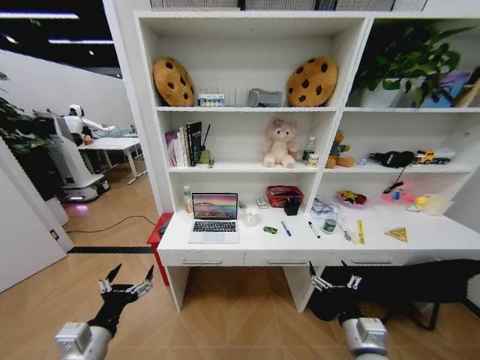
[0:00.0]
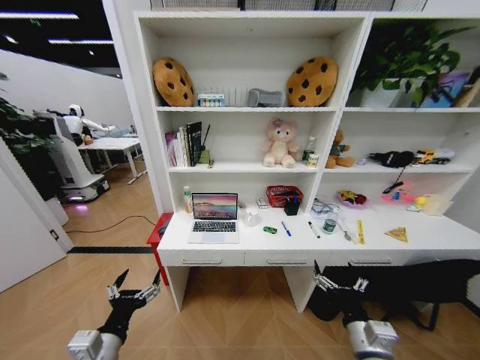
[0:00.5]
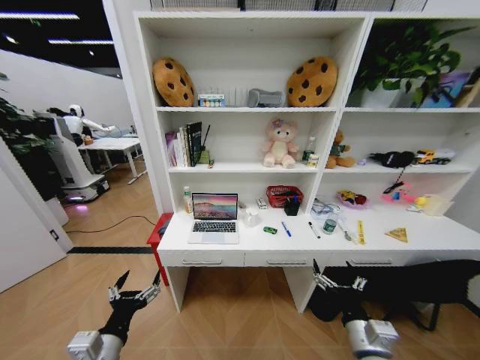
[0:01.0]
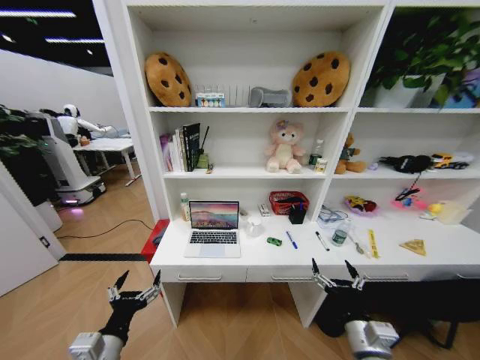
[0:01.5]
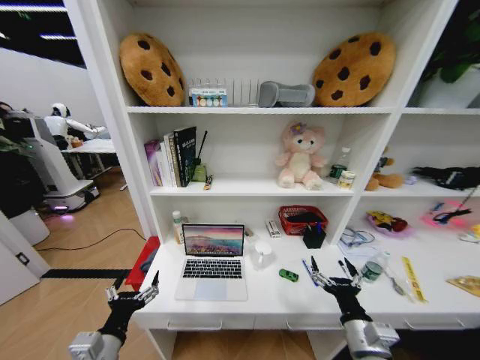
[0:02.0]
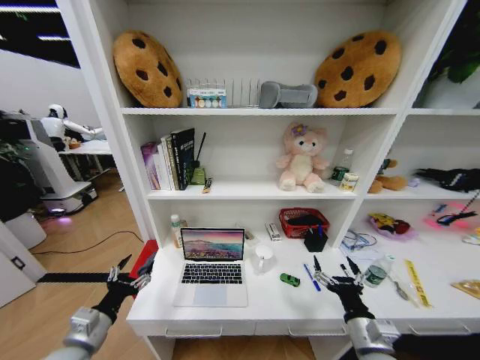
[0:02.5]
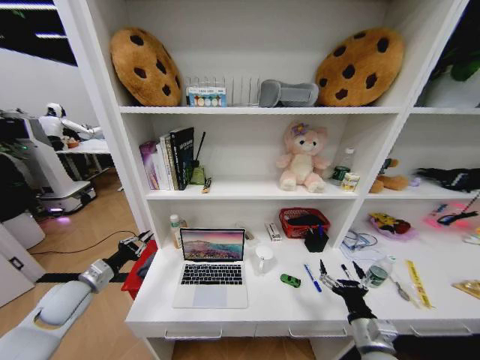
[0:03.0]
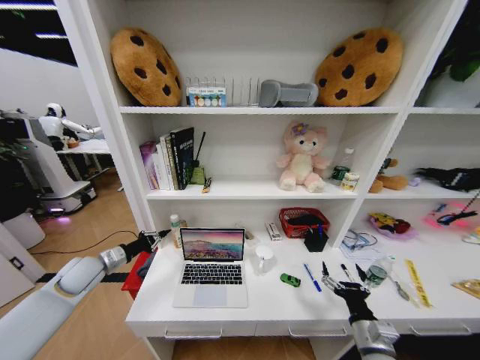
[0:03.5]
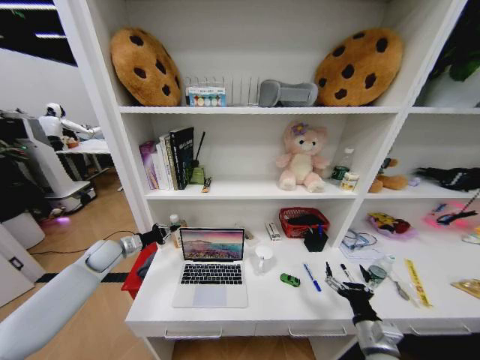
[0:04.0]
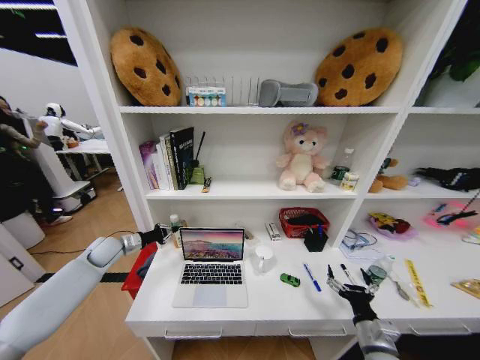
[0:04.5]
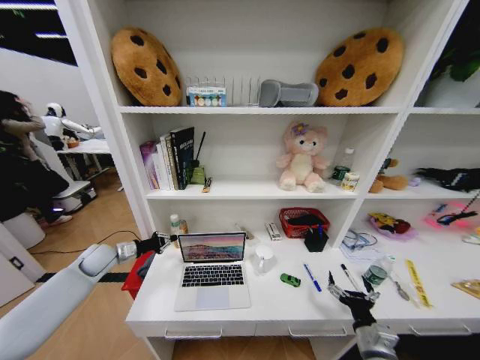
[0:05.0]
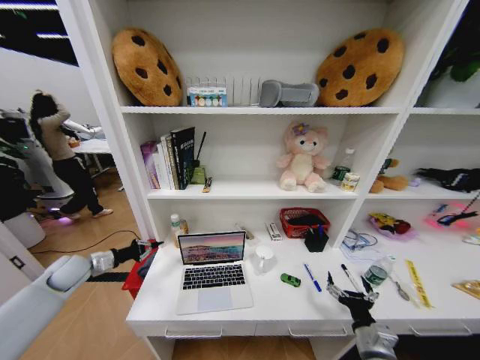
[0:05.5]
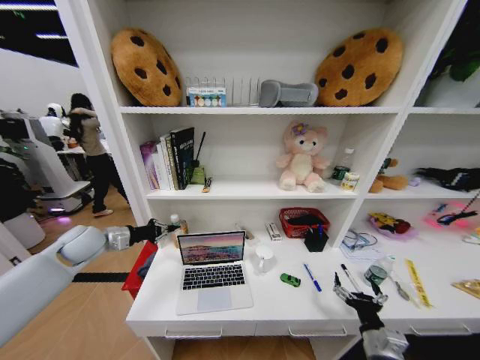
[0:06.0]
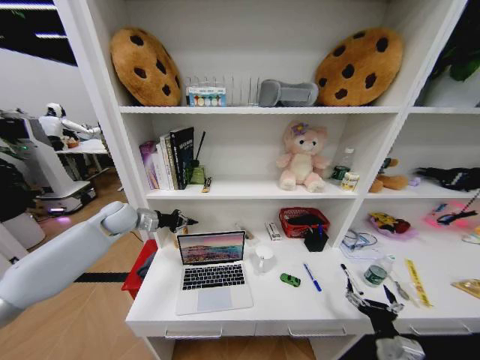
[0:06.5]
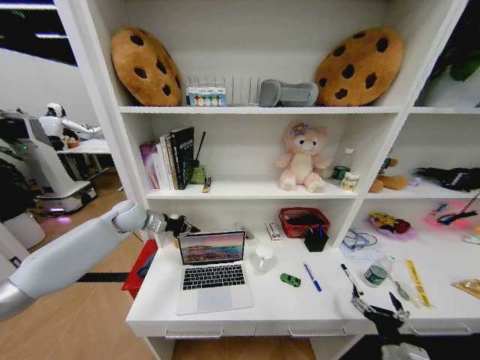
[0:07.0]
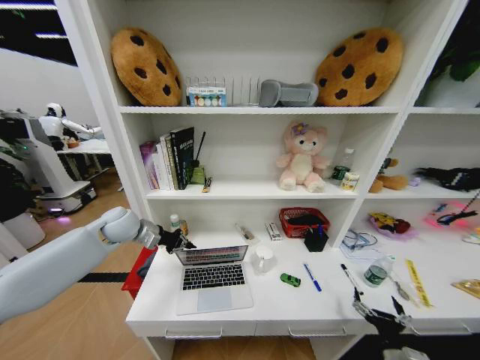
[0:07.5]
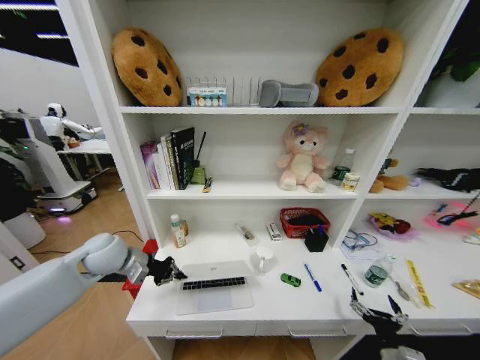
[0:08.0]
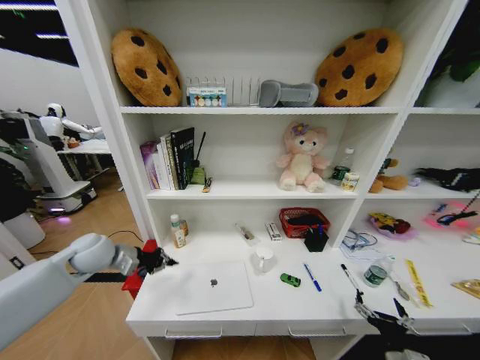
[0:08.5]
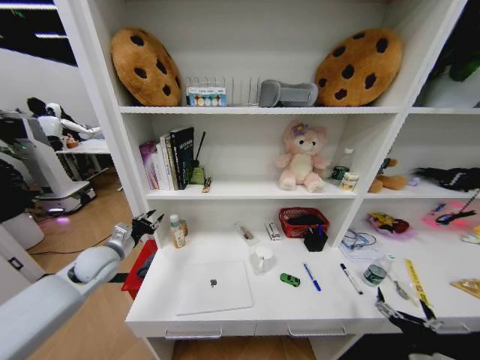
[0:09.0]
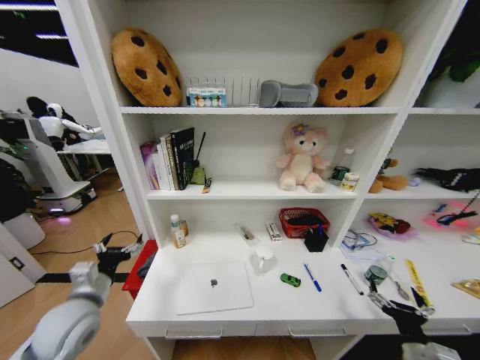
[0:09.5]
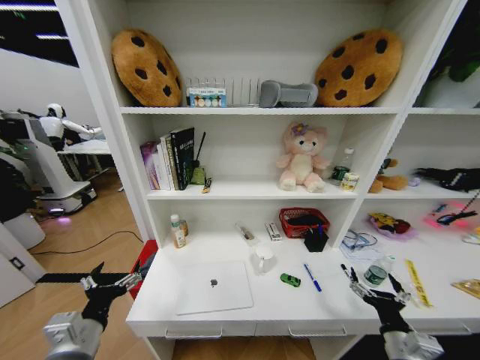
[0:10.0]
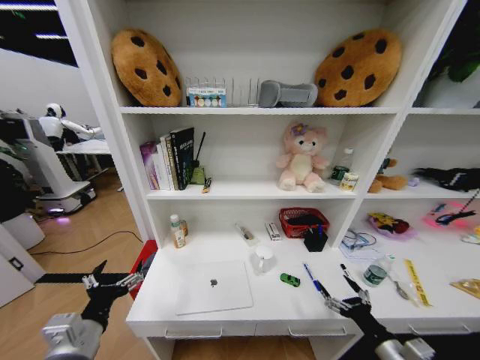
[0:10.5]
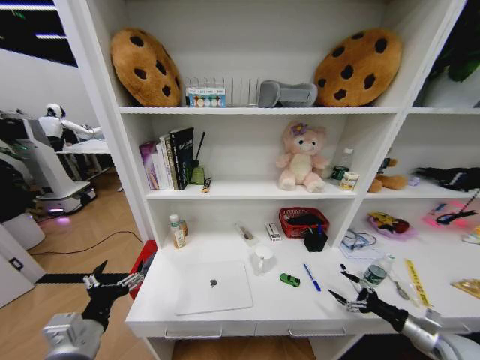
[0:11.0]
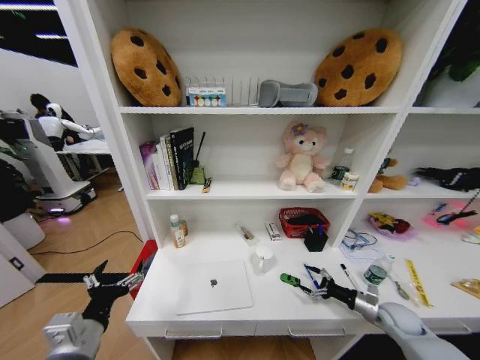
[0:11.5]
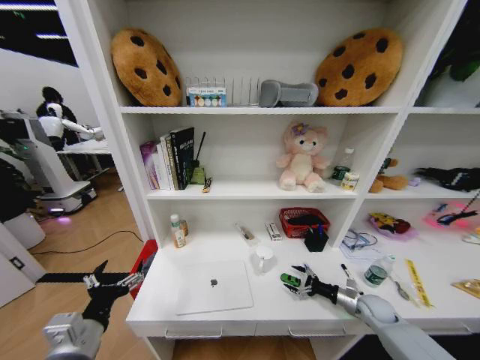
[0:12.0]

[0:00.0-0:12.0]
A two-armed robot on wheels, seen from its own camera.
Task of the whole recording: Organize the objects on the table.
0:02.0 to 0:04.0: The left gripper heads forward and to the left, covering roughly 35 cm, and closes up. The right gripper goes roughly 5 cm to the right.
0:04.0 to 0:06.0: The left gripper goes roughly 10 cm upward.
0:06.0 to 0:08.0: The left gripper shifts roughly 5 cm to the right, and travels forward and back again, approximately 10 cm each way; the right gripper ends up roughly 5 cm from where it was.
0:08.0 to 0:10.0: The left gripper goes roughly 25 cm backward, and opens; the right gripper is displaced upward by roughly 5 cm.
0:10.0 to 0:12.0: The right gripper shifts about 25 cm forward, downward and to the right.

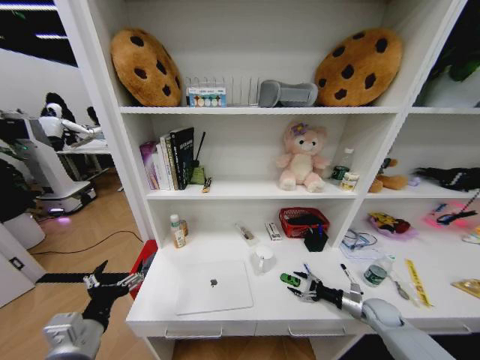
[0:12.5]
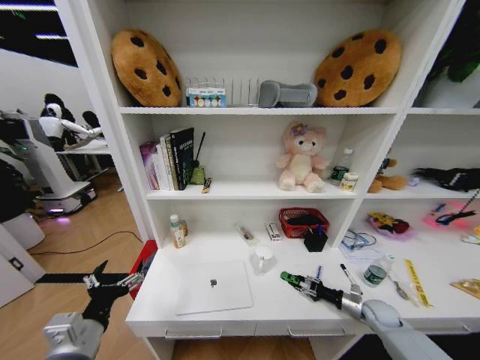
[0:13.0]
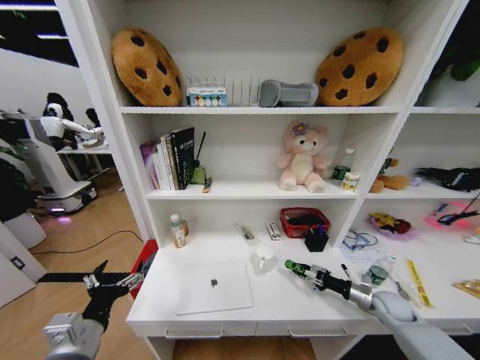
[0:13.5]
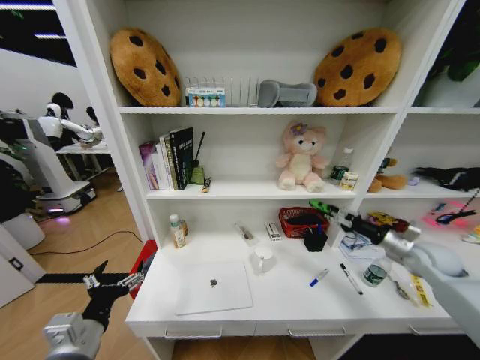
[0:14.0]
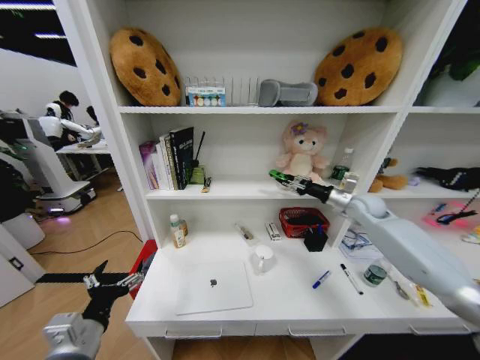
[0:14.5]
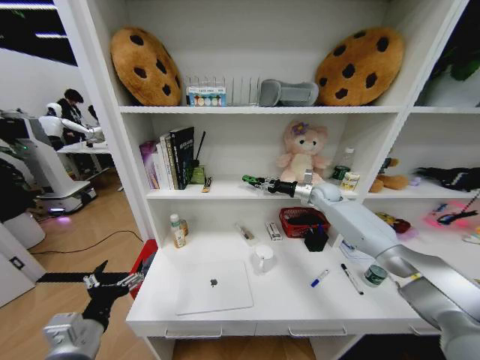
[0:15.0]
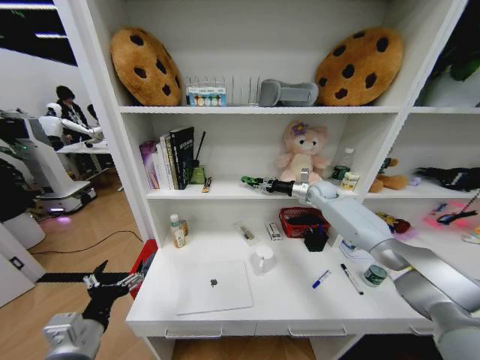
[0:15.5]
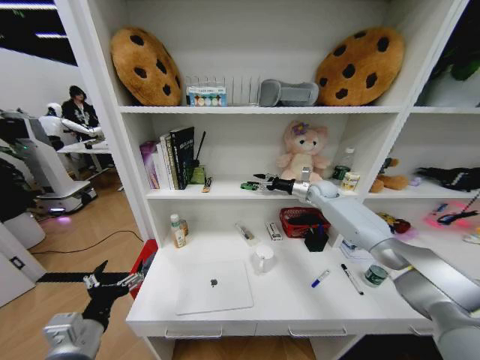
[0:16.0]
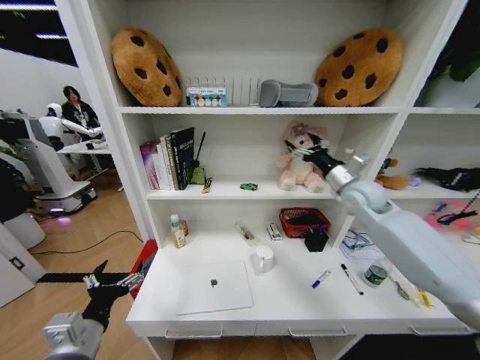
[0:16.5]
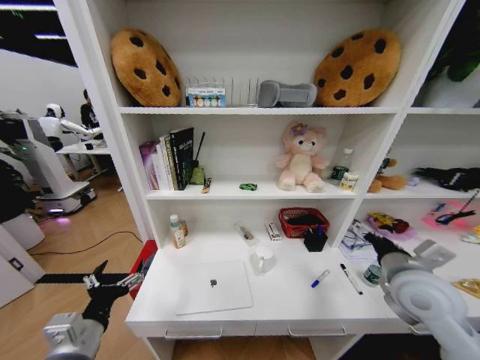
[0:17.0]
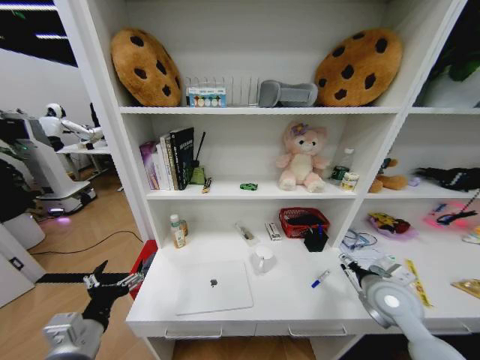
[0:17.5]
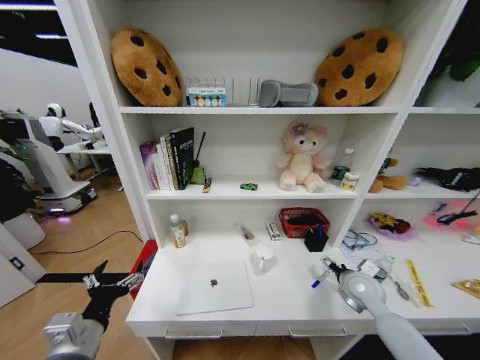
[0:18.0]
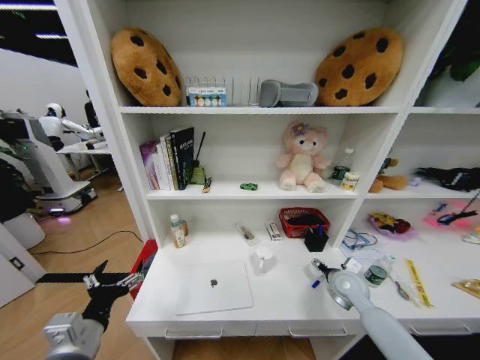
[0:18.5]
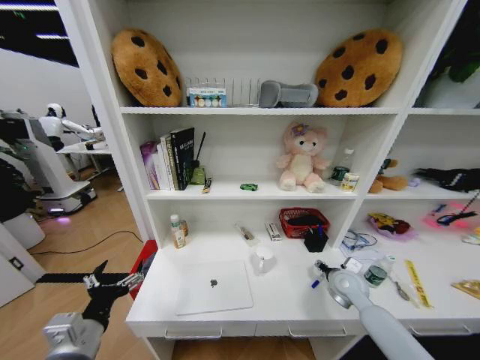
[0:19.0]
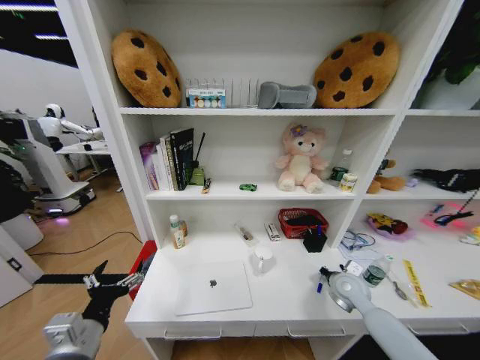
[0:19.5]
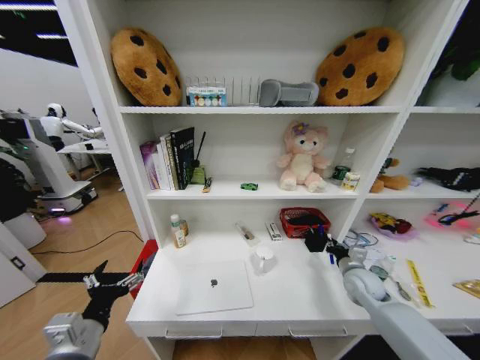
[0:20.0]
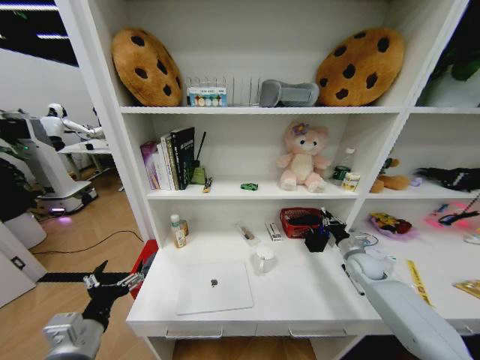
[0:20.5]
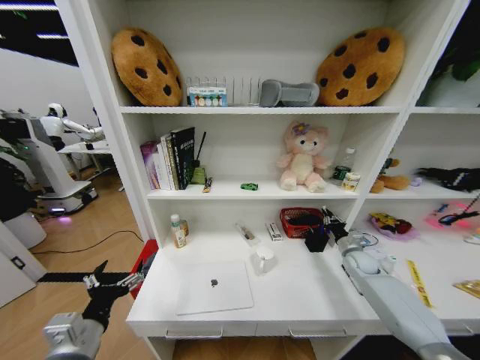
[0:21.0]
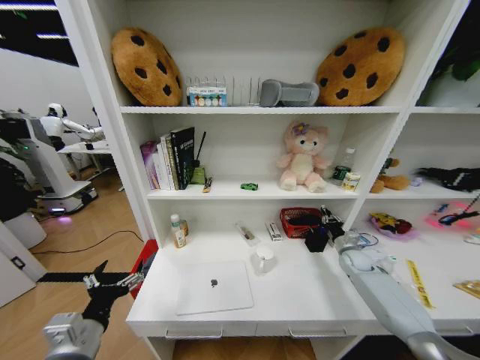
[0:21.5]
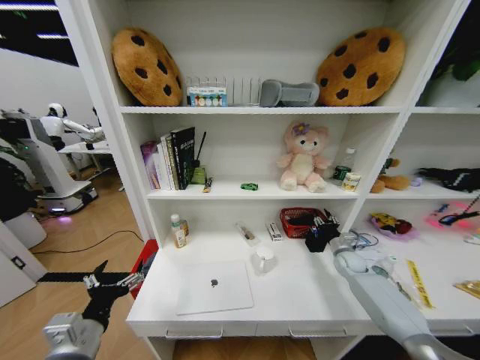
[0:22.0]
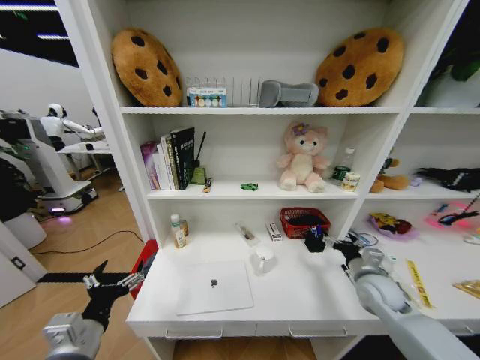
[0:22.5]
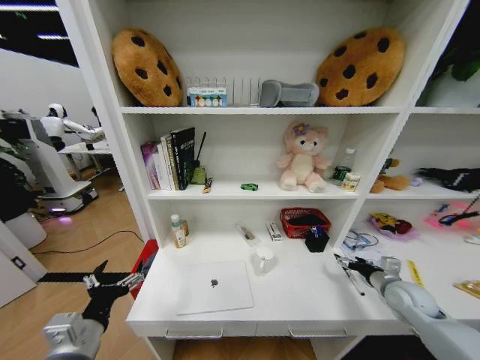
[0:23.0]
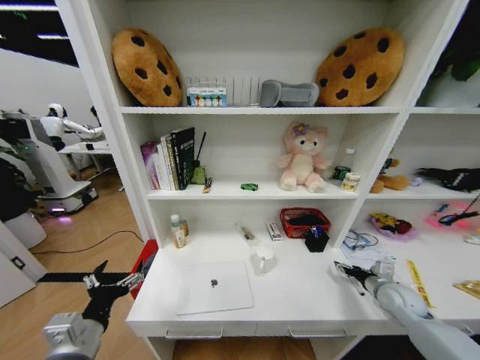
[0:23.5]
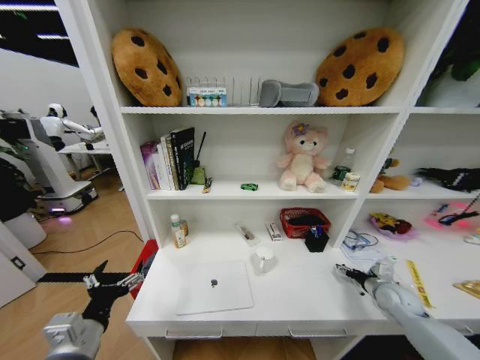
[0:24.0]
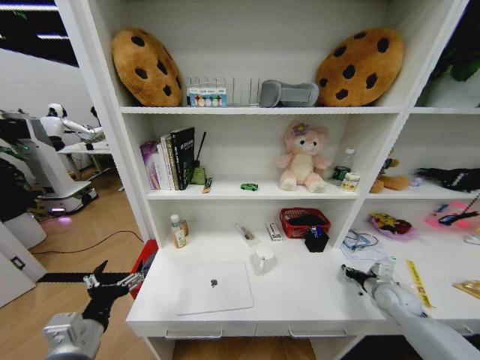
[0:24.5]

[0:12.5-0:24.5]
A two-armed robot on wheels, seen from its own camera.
Task of the whole recording: Organize the objects on the table.
0:12.5 to 0:14.5: The right gripper moves upward and forward, some 35 cm, and closes up.
0:14.5 to 0:16.5: The right gripper shifts about 10 cm backward, upward and to the left, and opens.
0:16.5 to 0:18.5: The right gripper travels downward by roughly 25 cm.
0:18.5 to 0:20.5: The right gripper travels to the right and forward by roughly 10 cm, and closes its fingers.
0:20.5 to 0:22.5: The right gripper is displaced backward by roughly 10 cm, and opens its fingers.
0:22.5 to 0:24.5: The right gripper shifts approximately 10 cm to the right and downward, and closes its fingers.

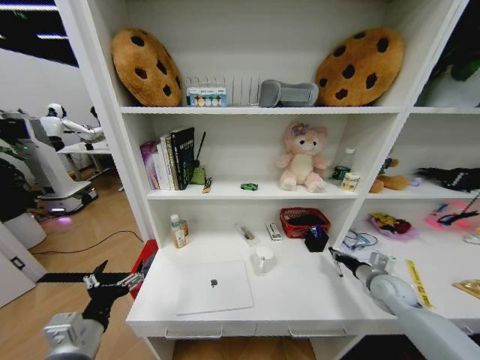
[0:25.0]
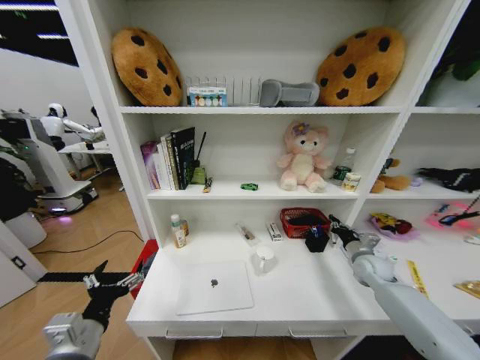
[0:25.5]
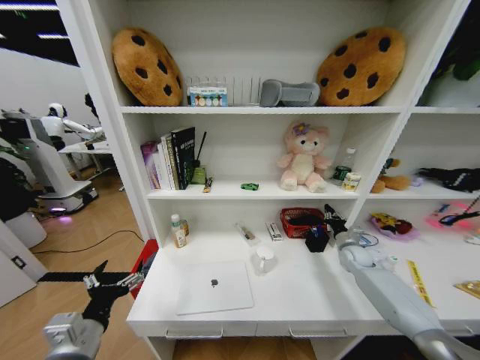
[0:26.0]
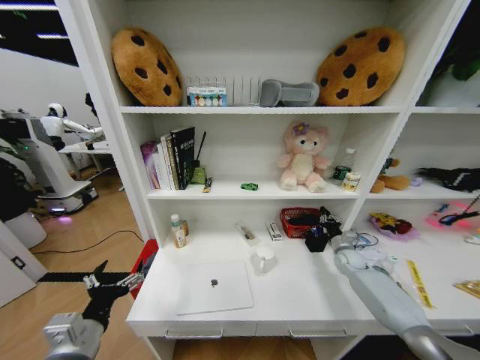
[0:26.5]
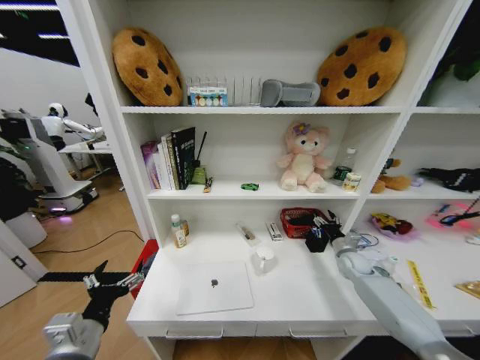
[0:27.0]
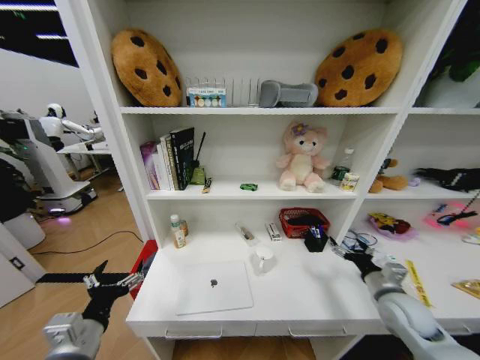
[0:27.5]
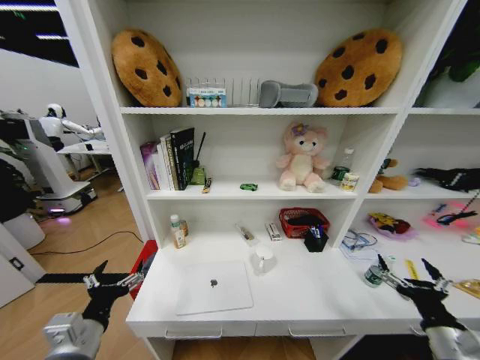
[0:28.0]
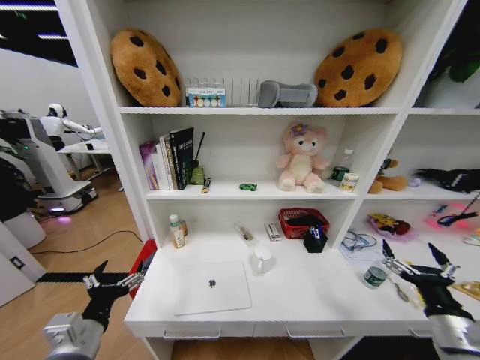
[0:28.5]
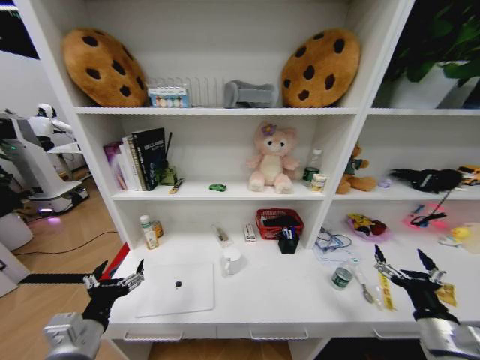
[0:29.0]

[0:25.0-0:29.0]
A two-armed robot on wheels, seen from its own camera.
Task of the whole recording: Organize the objects on the table.
0:25.0 to 0:27.0: The right gripper heads forward, covering roughly 10 cm, and opens.
0:27.0 to 0:29.0: The right gripper goes roughly 30 cm backward.
